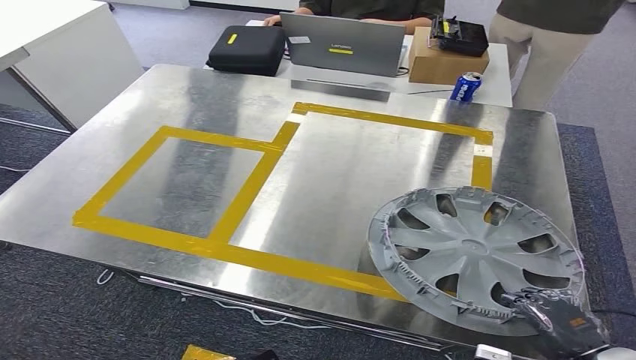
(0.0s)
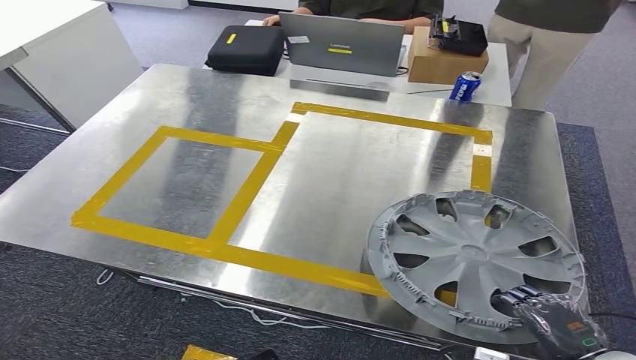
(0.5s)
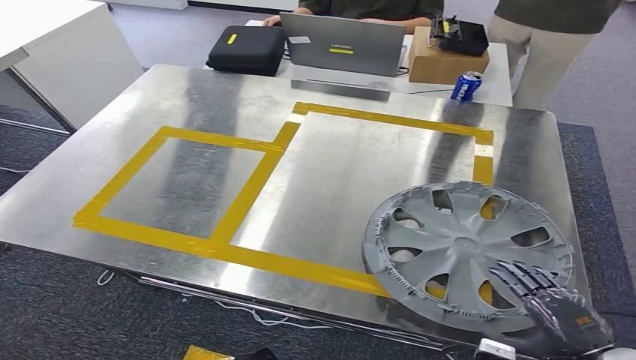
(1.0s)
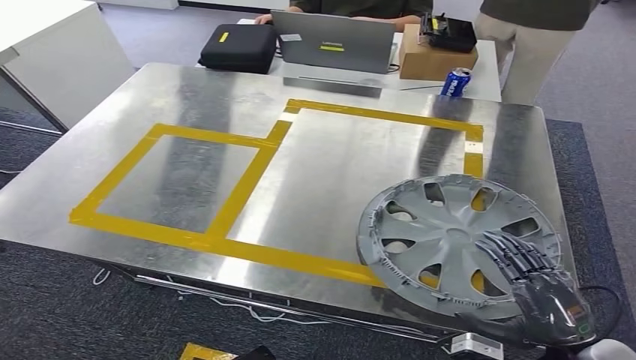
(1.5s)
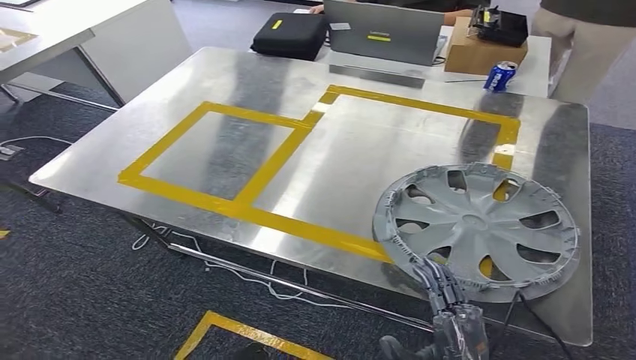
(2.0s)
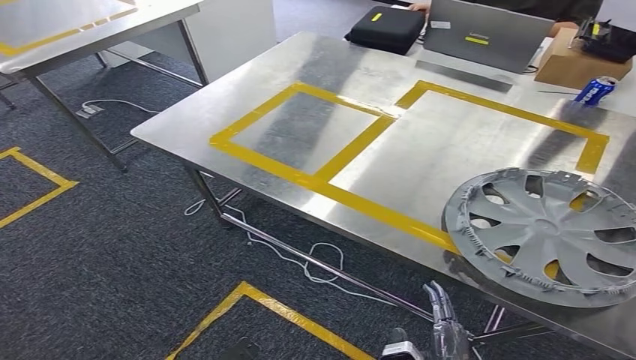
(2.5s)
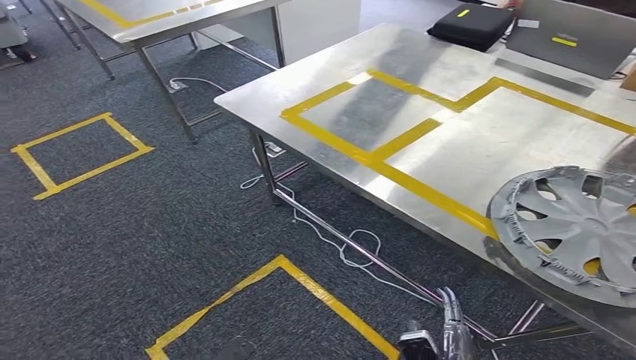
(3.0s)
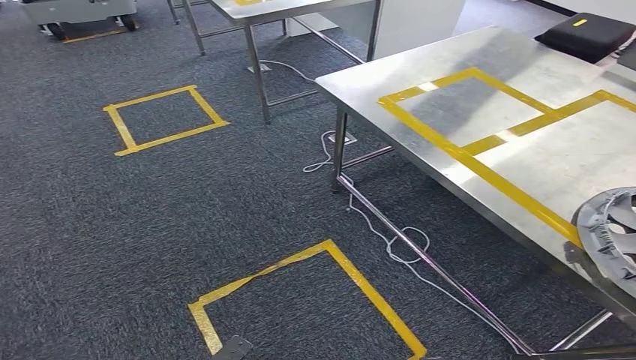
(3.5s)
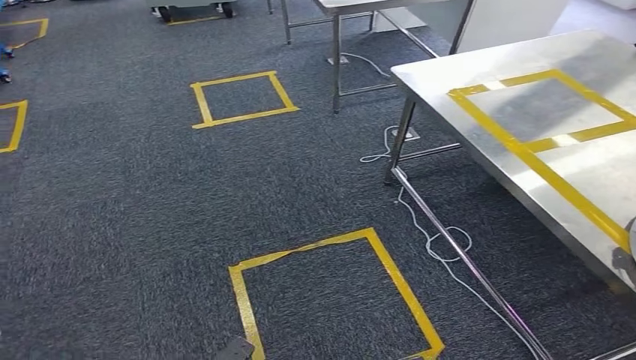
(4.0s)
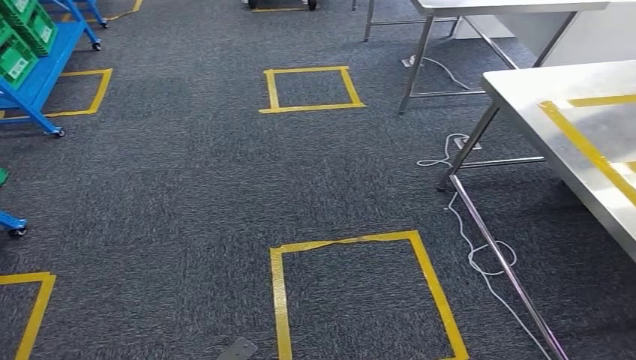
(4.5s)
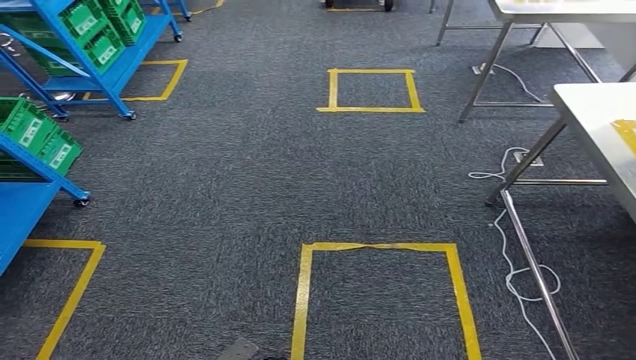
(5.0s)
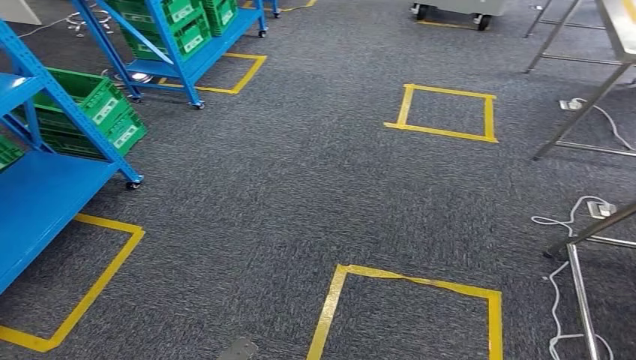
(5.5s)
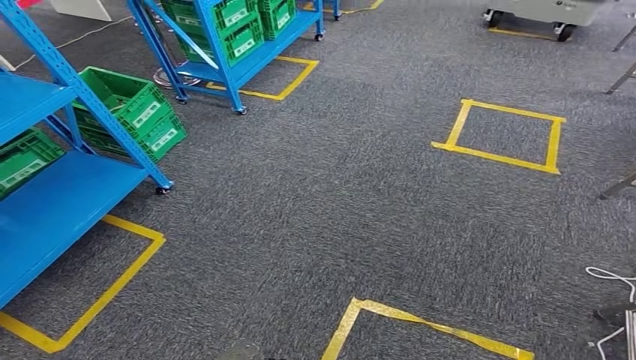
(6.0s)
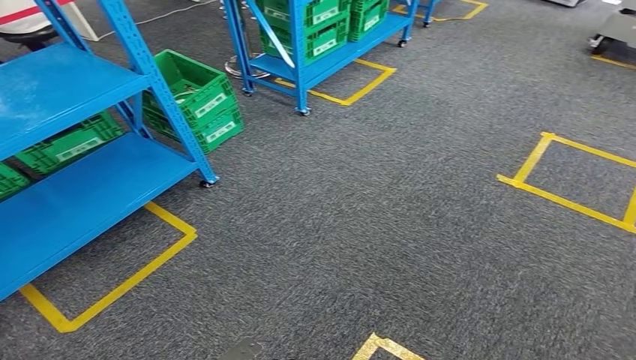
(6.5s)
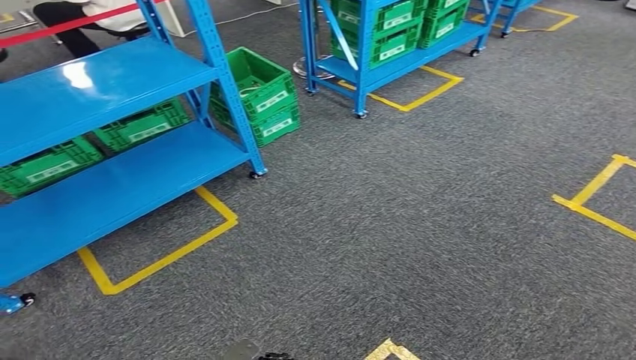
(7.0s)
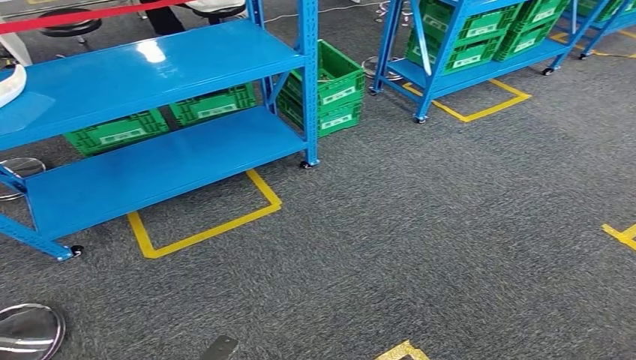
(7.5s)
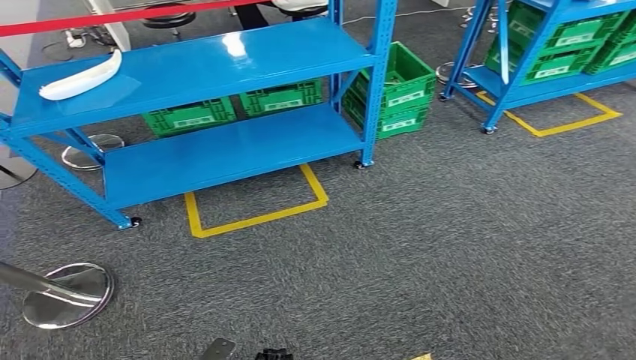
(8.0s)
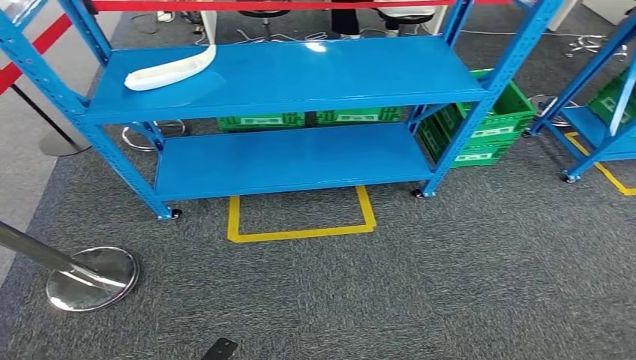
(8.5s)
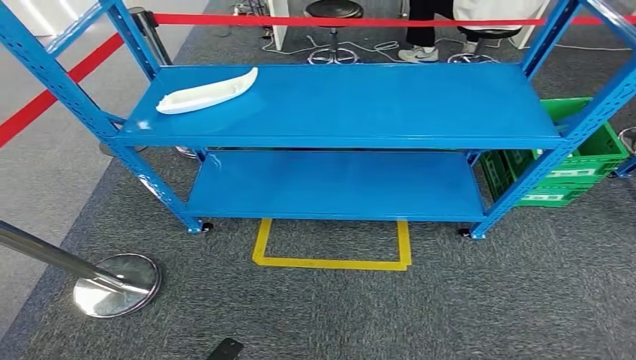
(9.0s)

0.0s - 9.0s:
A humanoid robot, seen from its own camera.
Step, 0.0s - 2.5s: Insert the small component into the corresponding slot on the workbench.
Step, 3.0s - 9.0s: Return to the initial position at the workbench.
